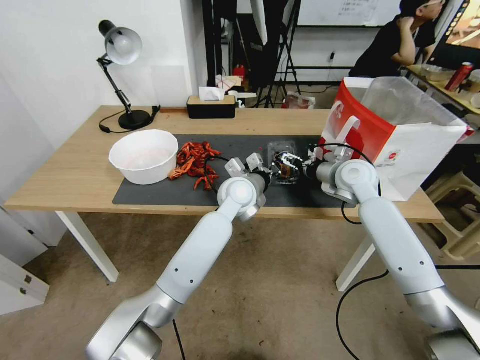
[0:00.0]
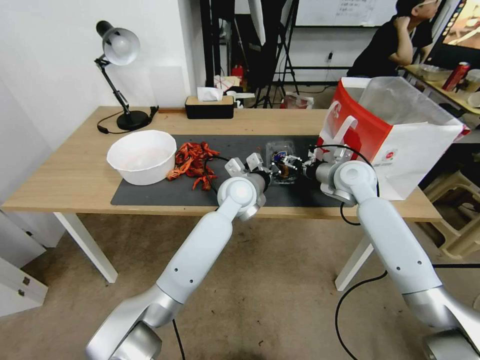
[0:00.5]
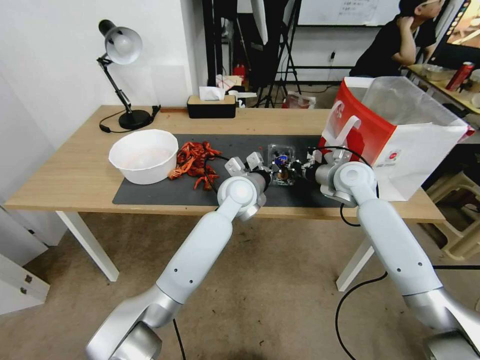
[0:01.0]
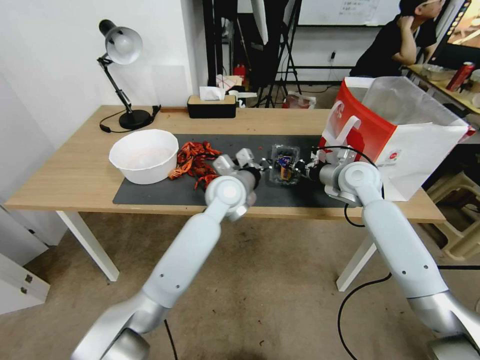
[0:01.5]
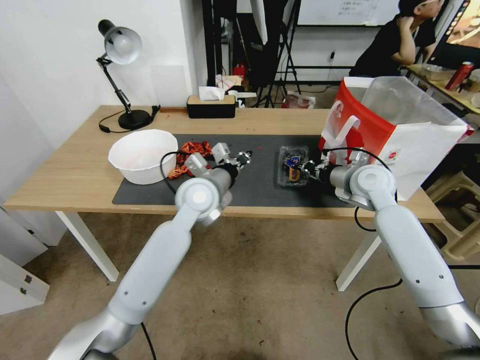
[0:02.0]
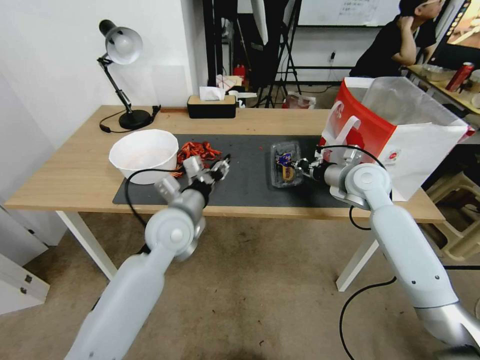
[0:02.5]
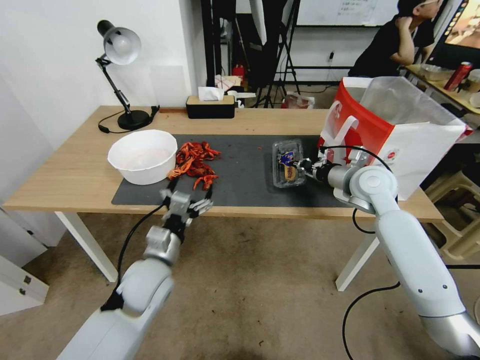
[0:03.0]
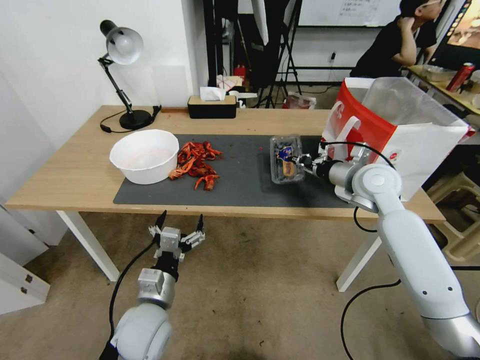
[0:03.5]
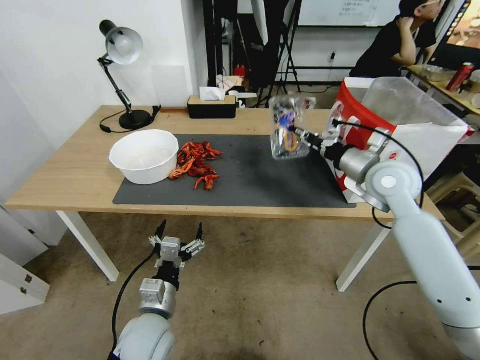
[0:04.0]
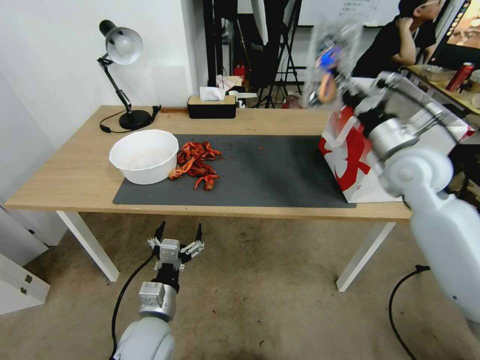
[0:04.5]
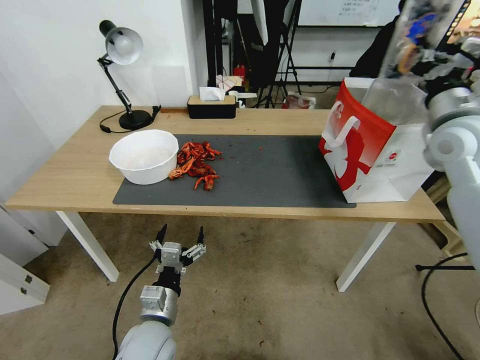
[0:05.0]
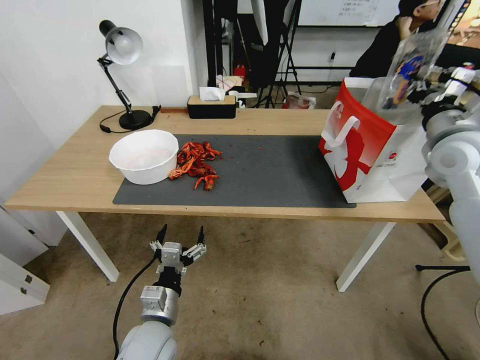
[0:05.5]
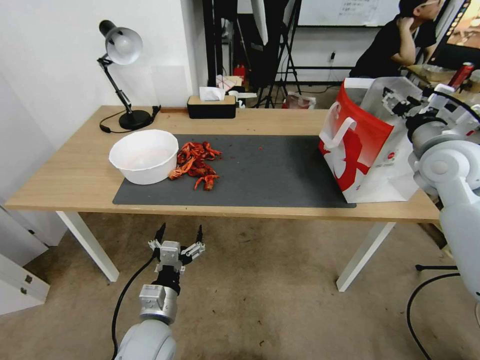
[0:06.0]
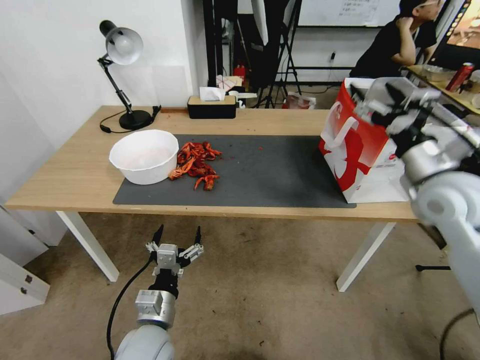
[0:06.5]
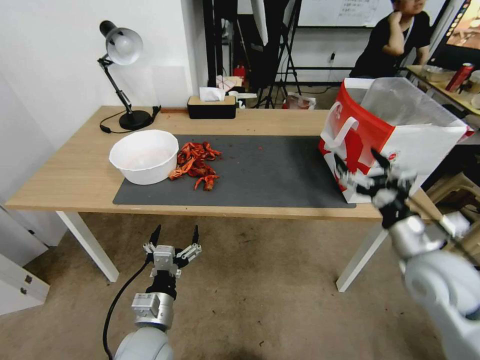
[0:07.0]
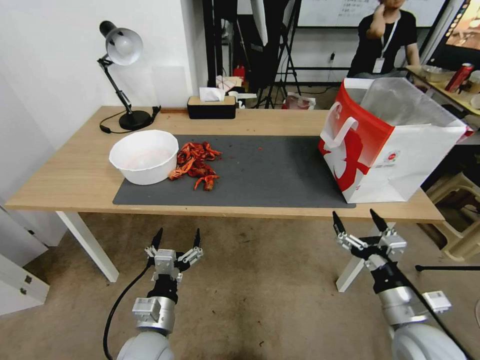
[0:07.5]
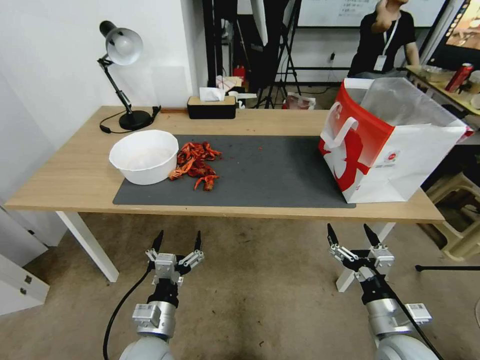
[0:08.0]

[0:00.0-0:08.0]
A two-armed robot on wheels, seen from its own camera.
Task of the whole recording: Close the takeout container lid, then place the container into the takeout bag.
0:00.0 to 0:02.0: The right gripper closes up. The left gripper heads to the left, covering approximately 10 cm.
0:02.0 to 0:04.0: The left gripper shifts approximately 30 cm backward and downward, and opens. Meanwhile the right gripper heads upward, covering about 5 cm.
0:04.0 to 0:06.0: The right gripper heads to the right and upward, covering about 10 cm, and opens.
0:06.0 to 0:08.0: The right gripper travels downward and backward by some 35 cm.

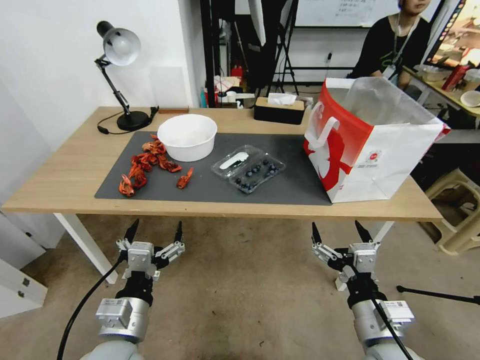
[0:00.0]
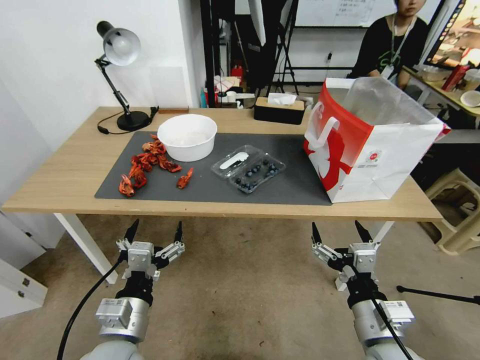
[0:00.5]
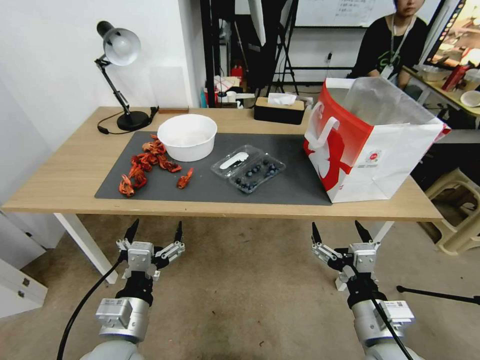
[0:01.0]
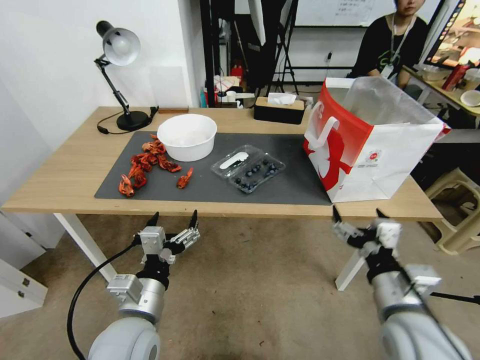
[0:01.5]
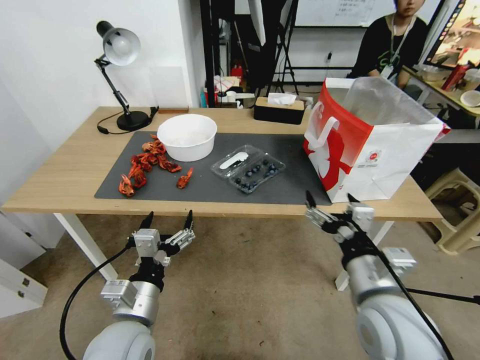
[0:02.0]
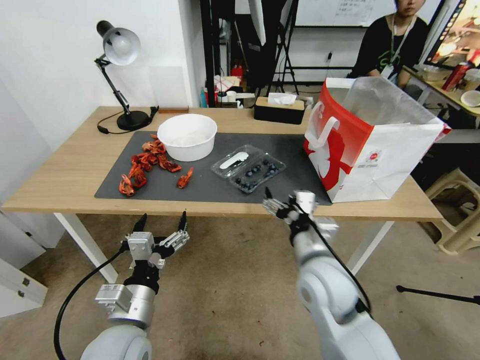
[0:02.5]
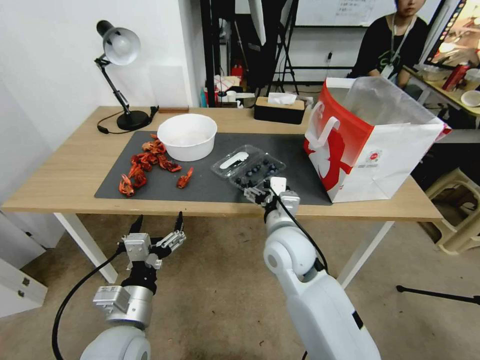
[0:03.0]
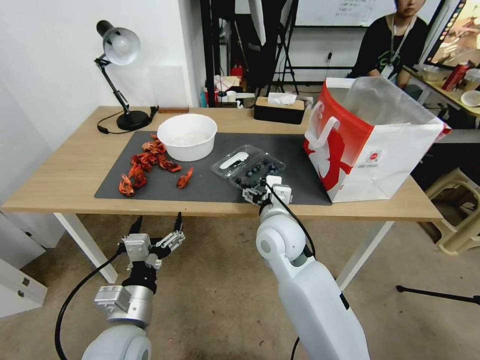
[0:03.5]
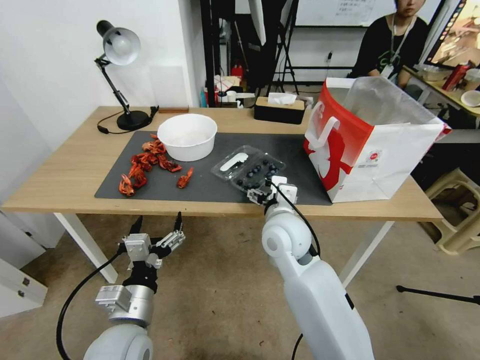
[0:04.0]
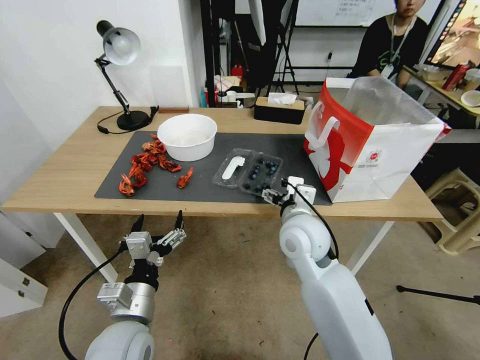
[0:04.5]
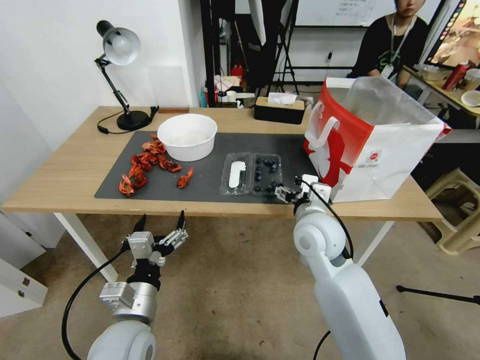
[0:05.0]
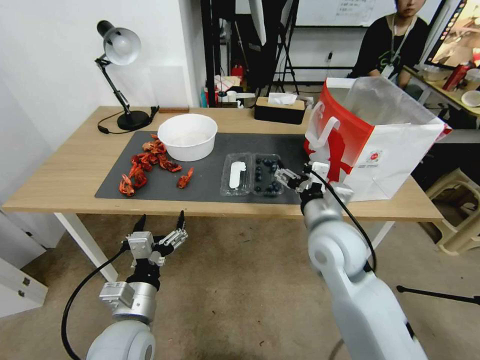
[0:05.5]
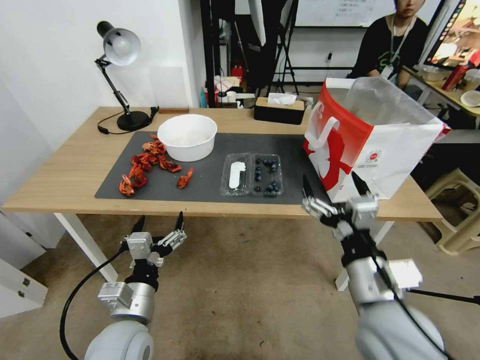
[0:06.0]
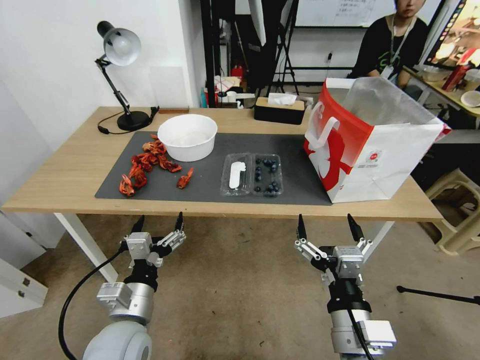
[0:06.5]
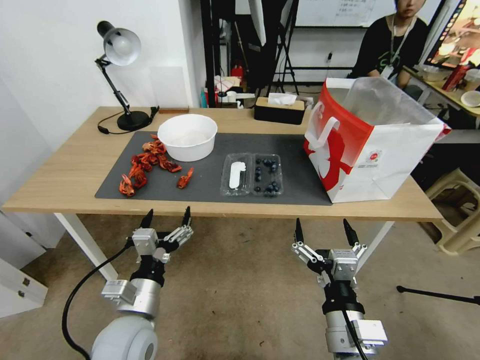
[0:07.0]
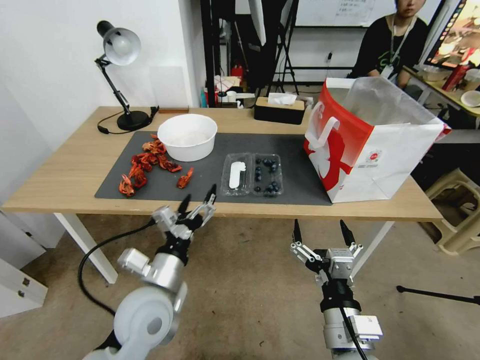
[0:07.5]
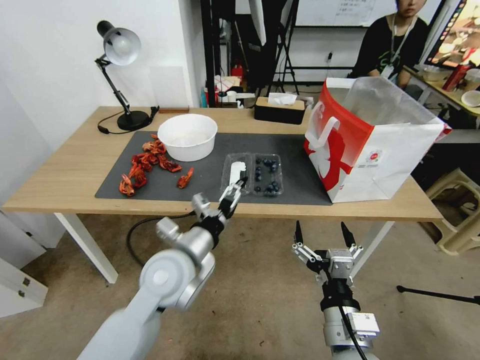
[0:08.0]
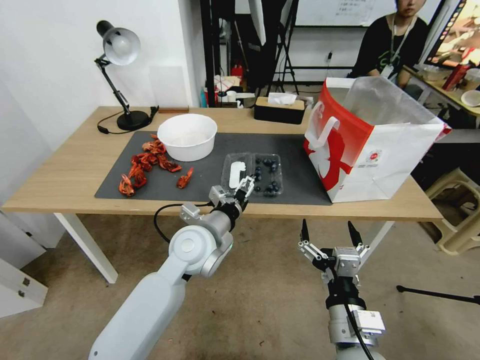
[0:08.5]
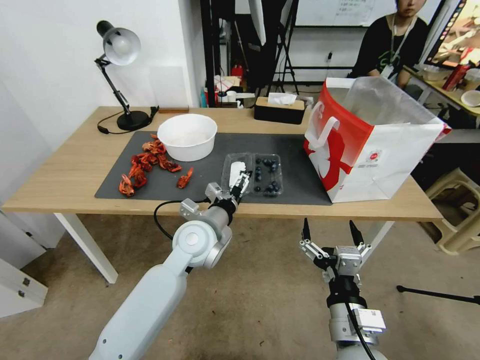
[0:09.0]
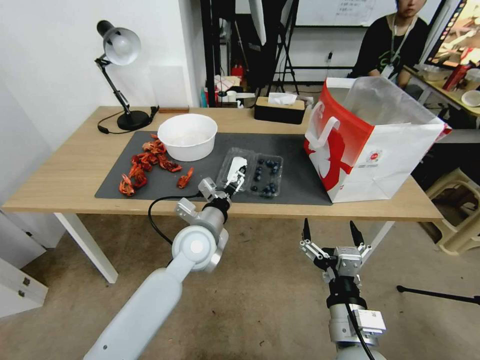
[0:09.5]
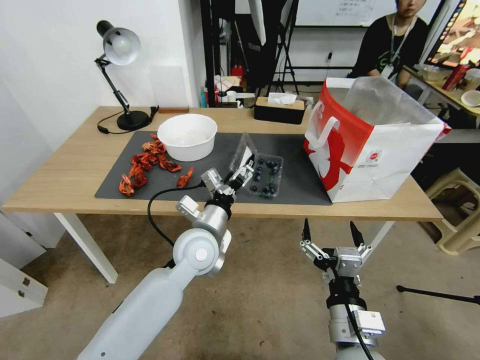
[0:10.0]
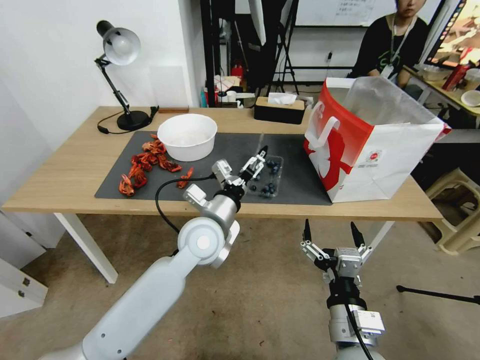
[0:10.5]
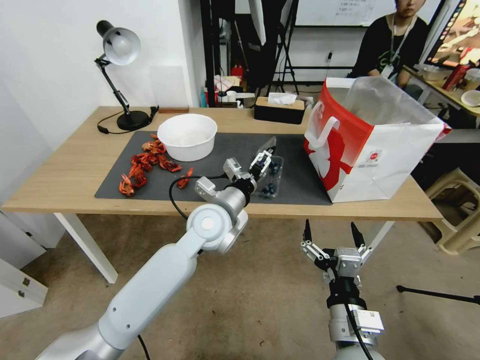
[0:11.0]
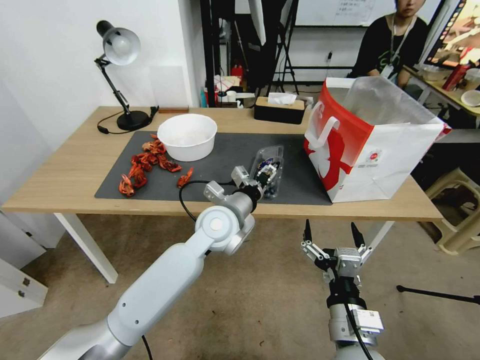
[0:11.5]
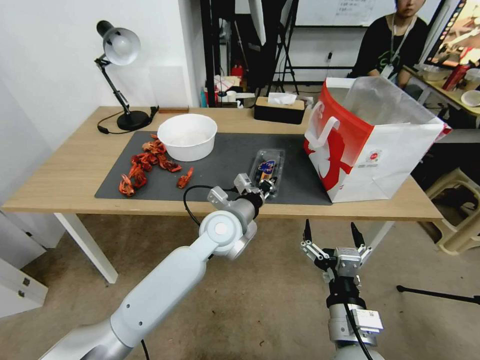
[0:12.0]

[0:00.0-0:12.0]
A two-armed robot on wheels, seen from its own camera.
Task of the whole recording: Close the takeout container lid, then place the container into the takeout bag.
0:02.0 to 0:04.0: The right gripper travels forward and to the left by roughly 20 cm.
0:04.0 to 0:06.0: The right gripper is displaced backward and to the right by roughly 20 cm.
0:06.0 to 0:08.0: The right gripper moves downward, approximately 10 cm. The left gripper heads forward, to the right and upward, covering roughly 10 cm.
0:08.0 to 0:10.0: The left gripper shifts approximately 10 cm forward.
0:10.0 to 0:12.0: The left gripper moves to the right, roughly 5 cm, and closes up.

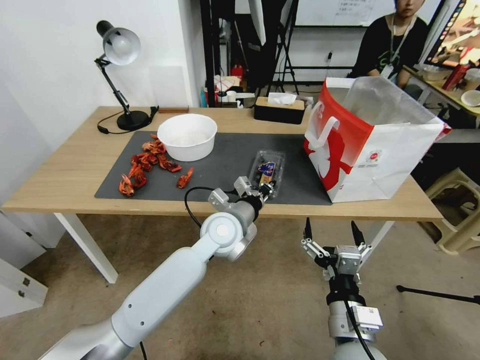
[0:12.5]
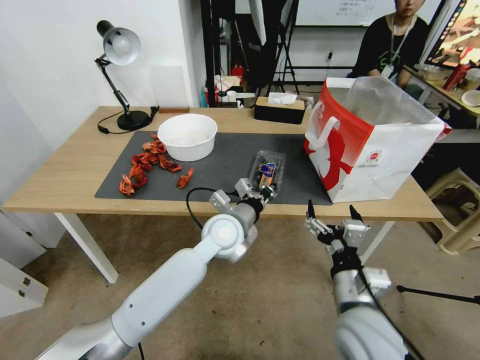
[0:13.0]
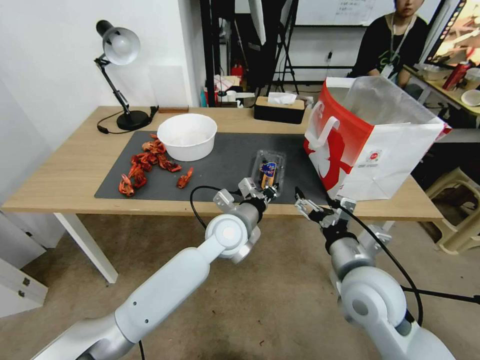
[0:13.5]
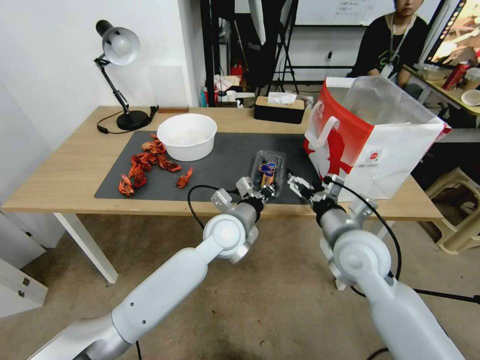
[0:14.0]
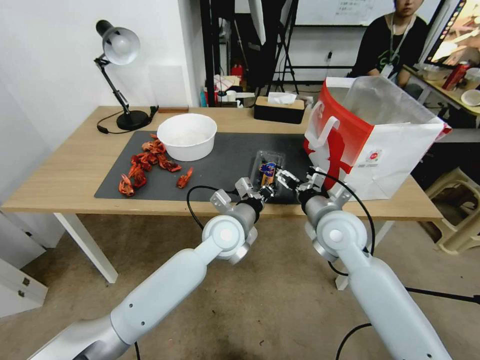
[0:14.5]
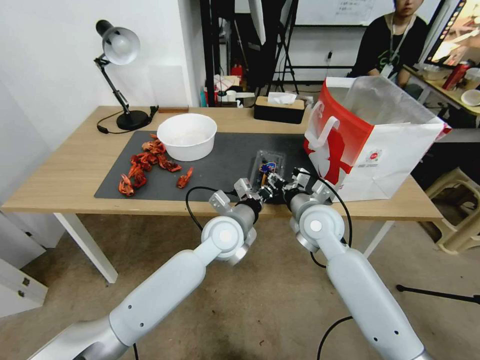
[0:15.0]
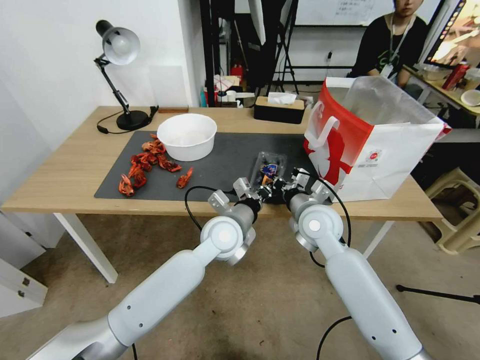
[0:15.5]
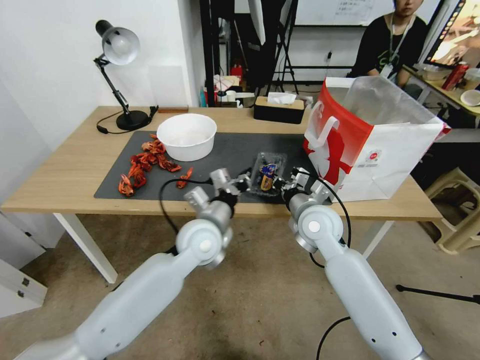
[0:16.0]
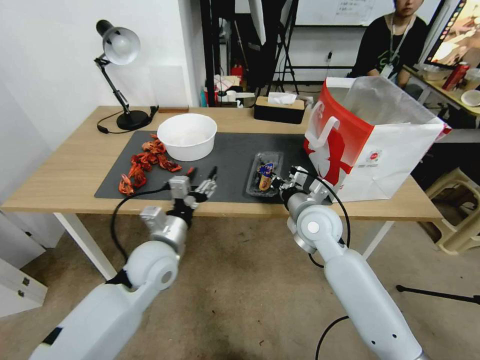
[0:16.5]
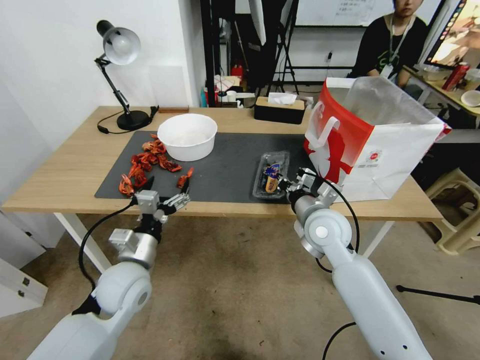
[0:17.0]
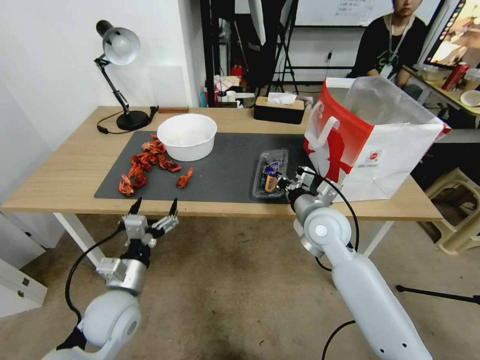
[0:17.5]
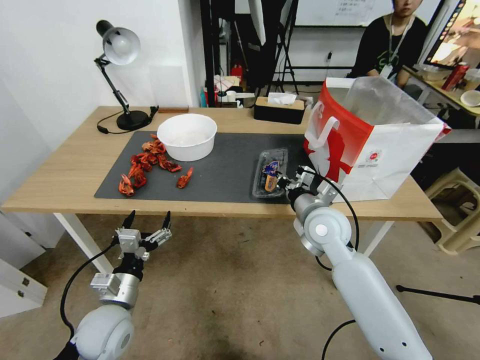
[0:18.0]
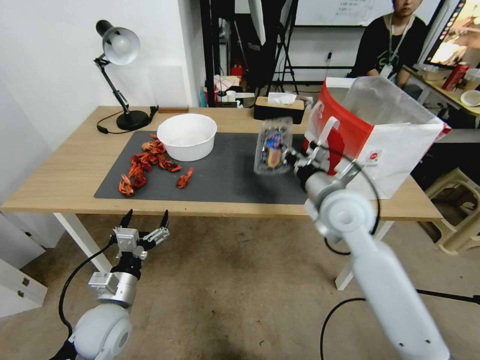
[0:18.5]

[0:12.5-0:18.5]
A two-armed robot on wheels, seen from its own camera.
Task of the whole recording: Close the takeout container lid, then place the container into the takeout bag.
0:12.5 to 0:14.5: The right gripper shifts roughly 25 cm forward.
0:14.5 to 0:16.5: The left gripper goes some 15 cm to the left and backward, and opens up; the right gripper closes its fingers.
0:16.5 to 0:18.5: The right gripper is displaced upward by approximately 10 cm; the left gripper goes about 15 cm to the left, backward and downward, and opens.
